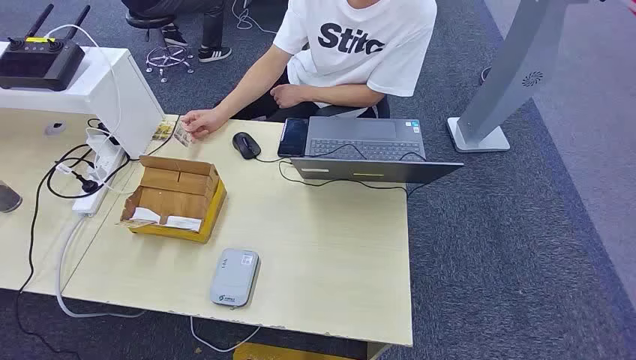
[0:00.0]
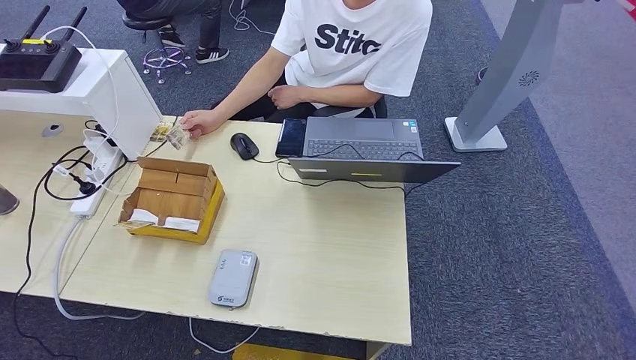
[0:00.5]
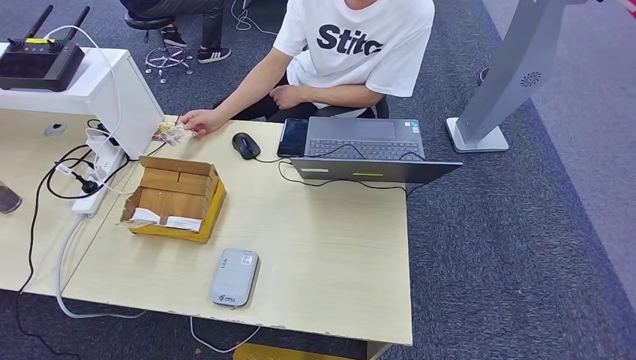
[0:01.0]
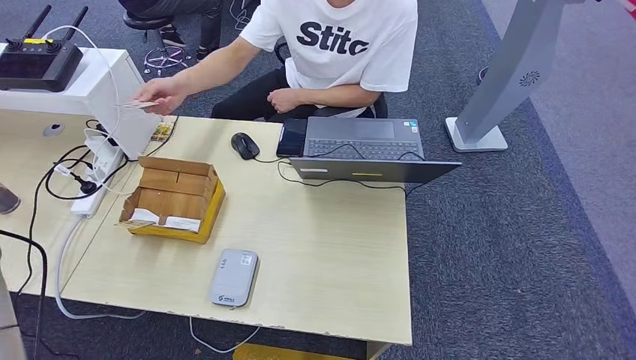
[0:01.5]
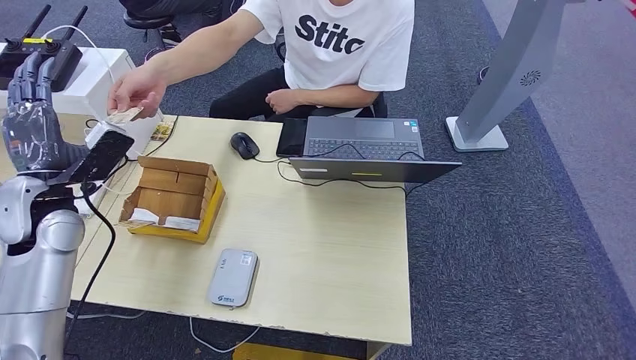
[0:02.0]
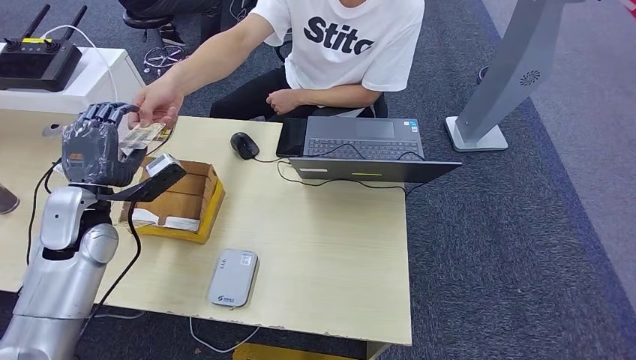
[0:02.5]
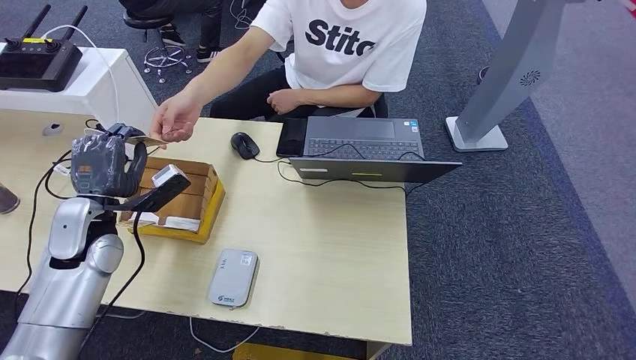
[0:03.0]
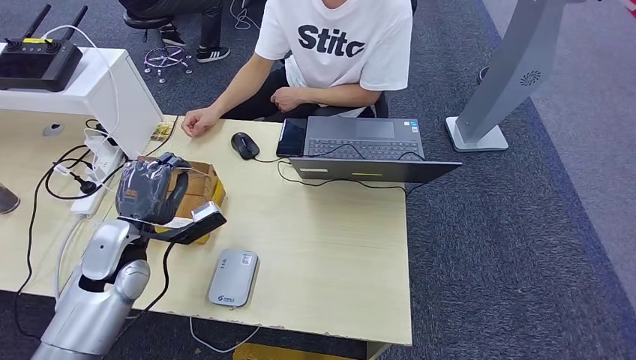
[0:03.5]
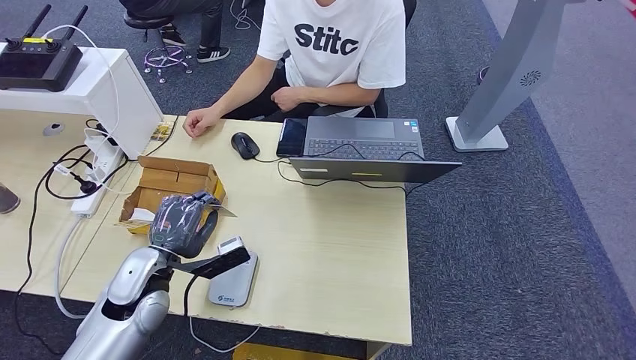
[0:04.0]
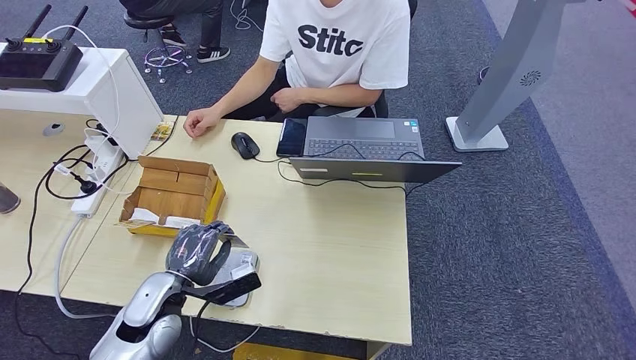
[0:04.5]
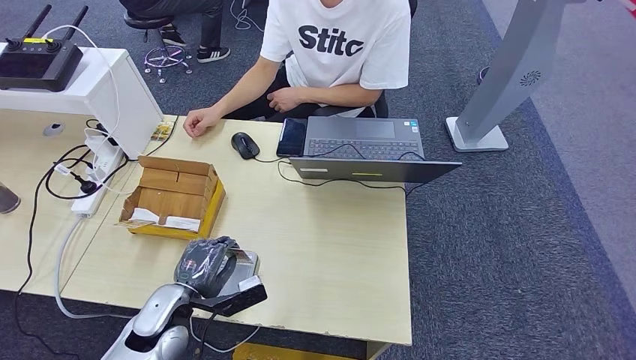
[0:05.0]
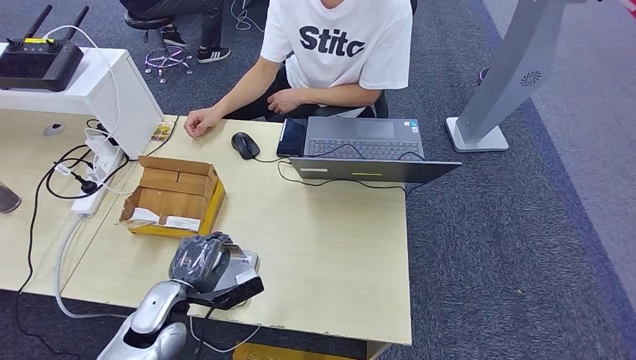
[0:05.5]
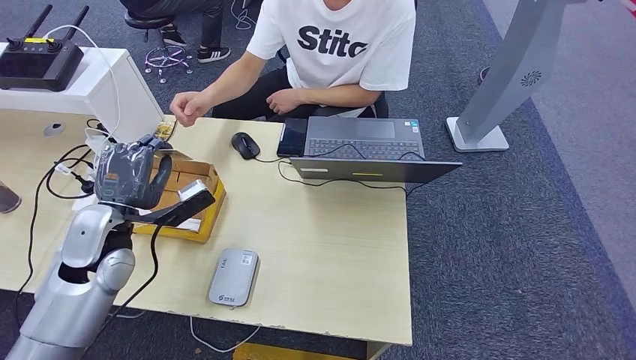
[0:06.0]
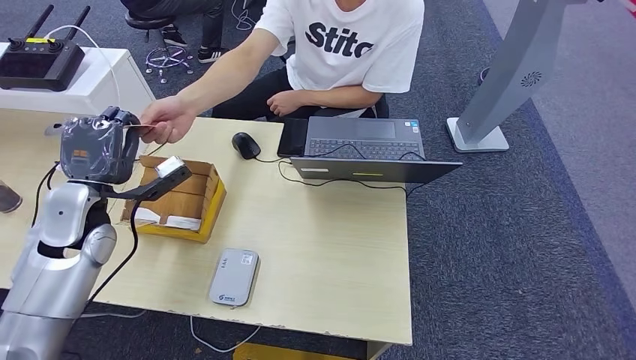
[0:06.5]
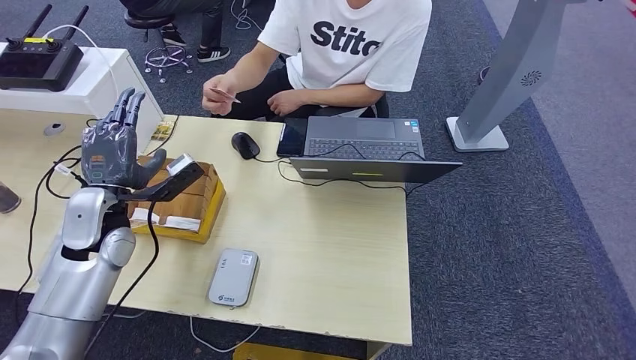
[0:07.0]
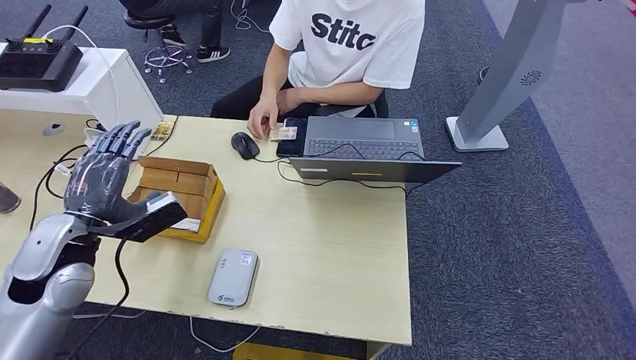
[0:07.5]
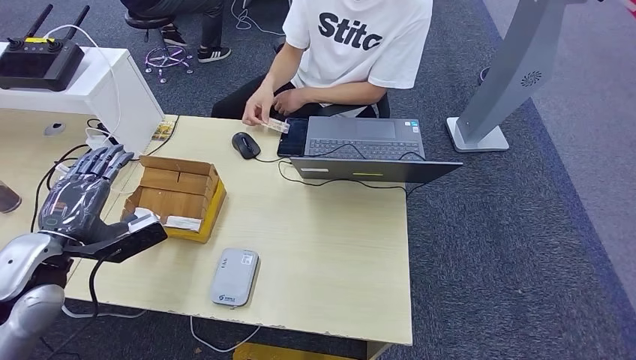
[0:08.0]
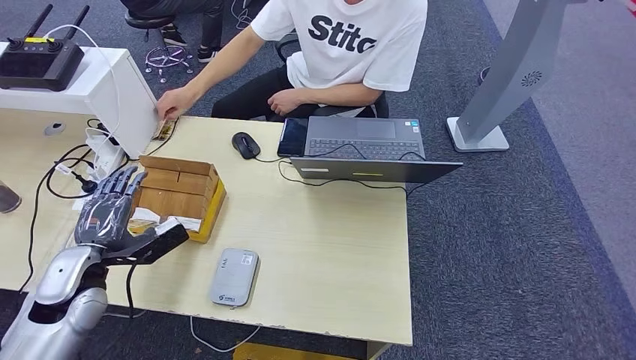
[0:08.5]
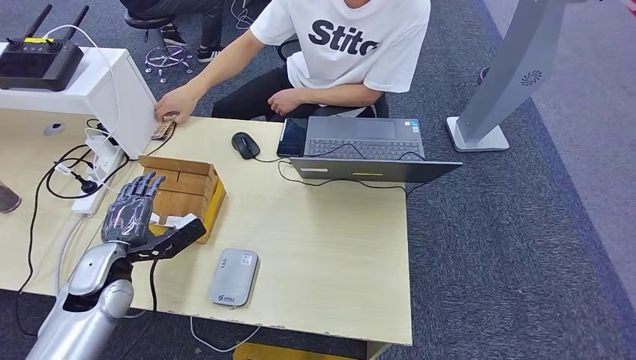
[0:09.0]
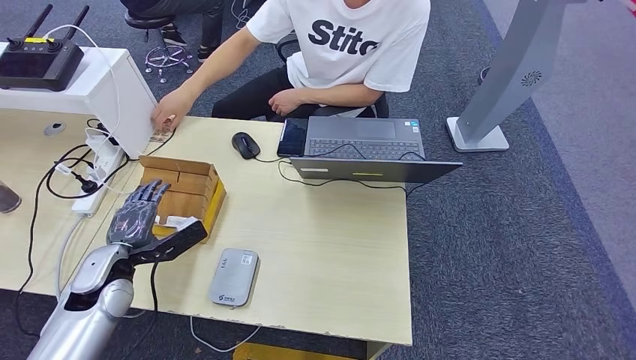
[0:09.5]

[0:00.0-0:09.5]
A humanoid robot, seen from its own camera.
Step, 0:00.0 to 0:03.0: Take the ID card from the person's hand.
Step, 0:03.5 to 0:05.5: Place the ID card on the card reader.
Step, 0:06.0 to 0:07.5: Hand the ID card to the person.
0:04.0 to 0:05.5: The left hand heads downward, covering about 5 cm.
0:05.5 to 0:07.5: The left hand shifts approximately 20 cm upward, to the left and forward.
0:07.5 to 0:09.5: The left hand is displaced downward by approximately 10 cm.

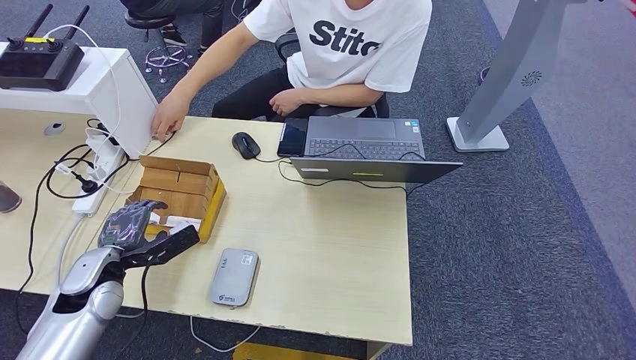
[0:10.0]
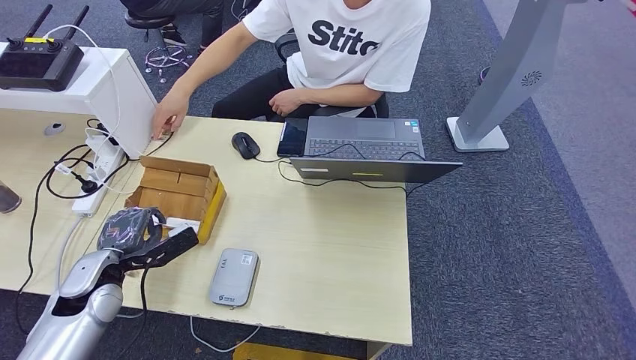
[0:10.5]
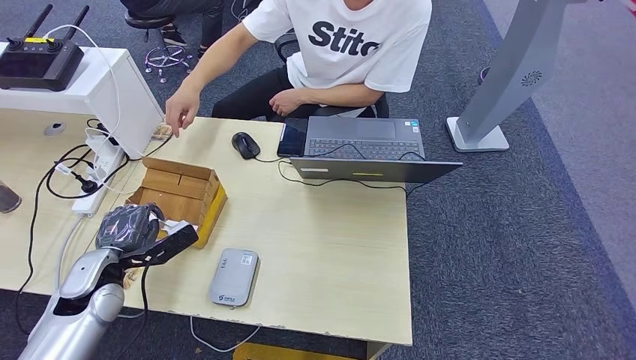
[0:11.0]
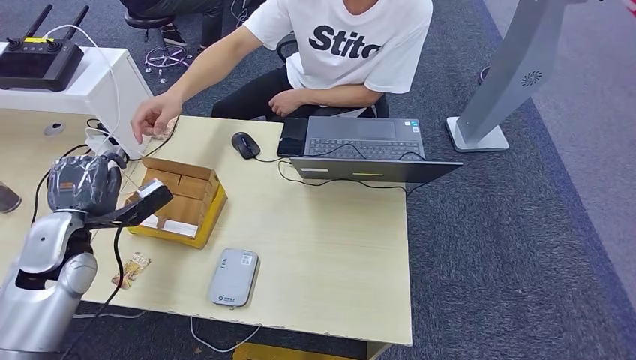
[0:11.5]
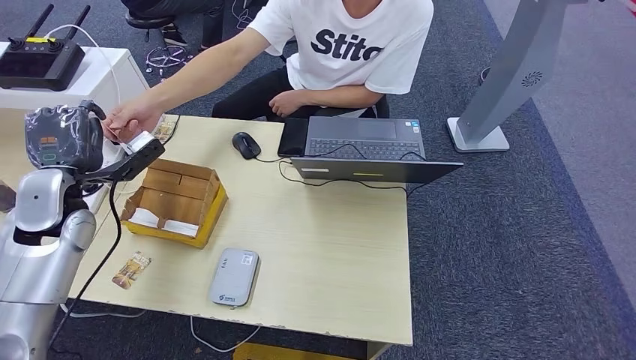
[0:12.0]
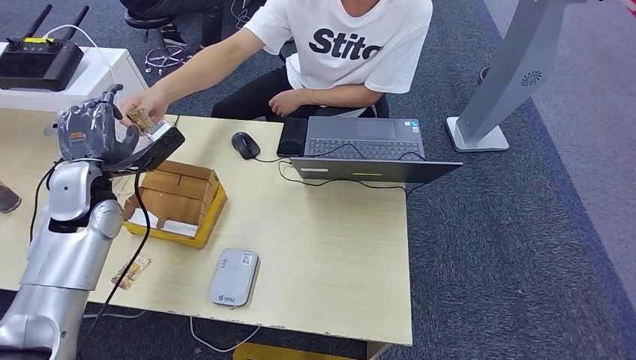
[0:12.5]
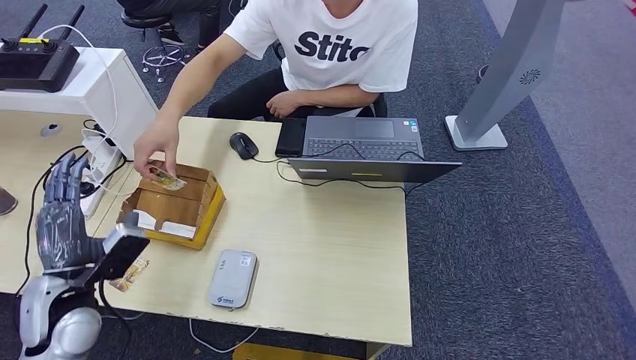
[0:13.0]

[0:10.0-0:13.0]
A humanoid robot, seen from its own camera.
Step, 0:12.0 to 0:13.0: Hand the room key to the person.
0:10.0 to 0:11.5: The left hand shifts some 10 cm upward.
0:11.5 to 0:13.0: The left hand moves backward, about 10 cm.
